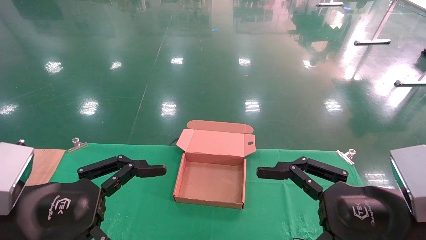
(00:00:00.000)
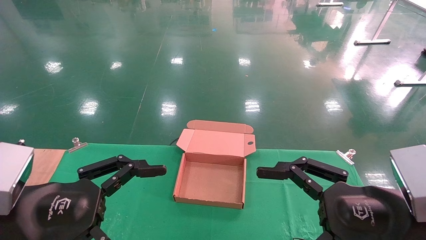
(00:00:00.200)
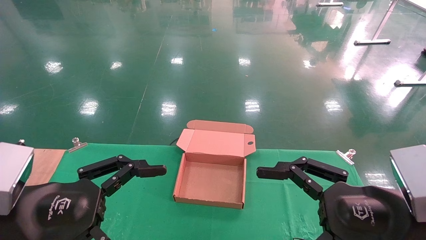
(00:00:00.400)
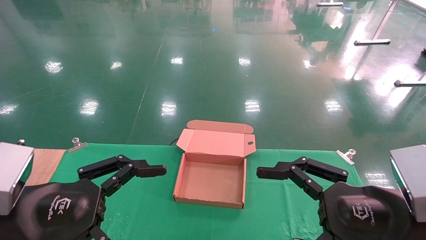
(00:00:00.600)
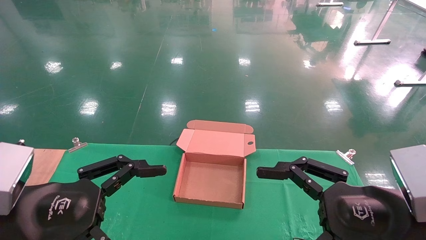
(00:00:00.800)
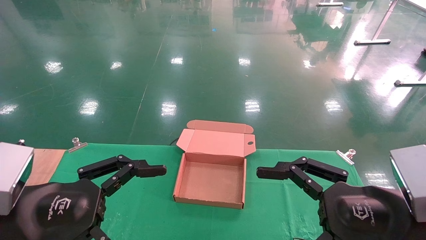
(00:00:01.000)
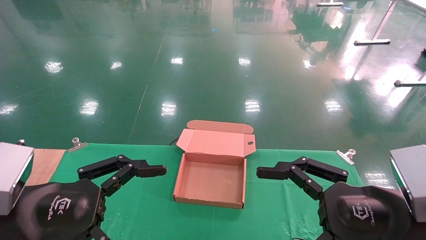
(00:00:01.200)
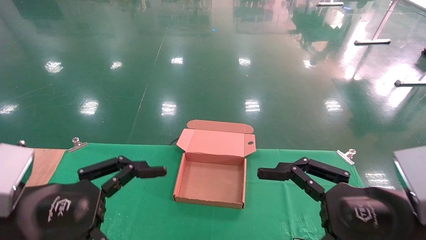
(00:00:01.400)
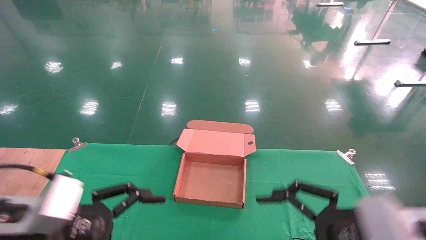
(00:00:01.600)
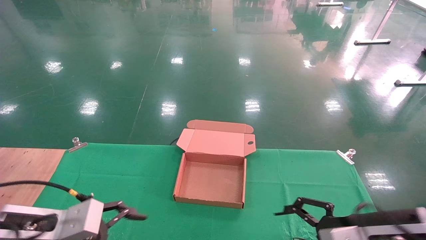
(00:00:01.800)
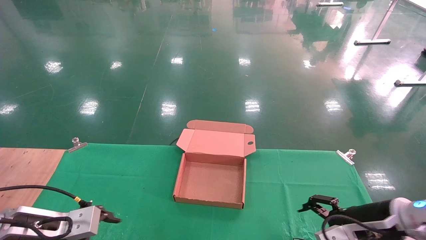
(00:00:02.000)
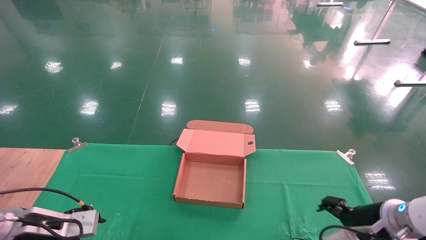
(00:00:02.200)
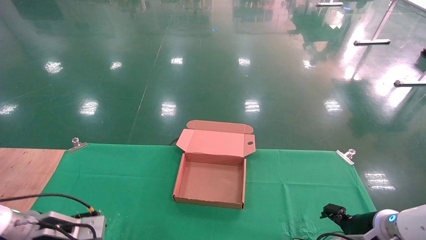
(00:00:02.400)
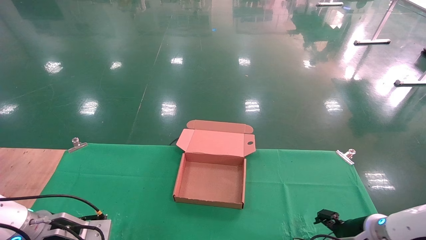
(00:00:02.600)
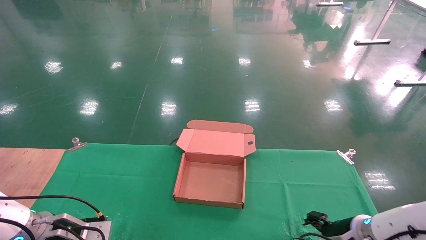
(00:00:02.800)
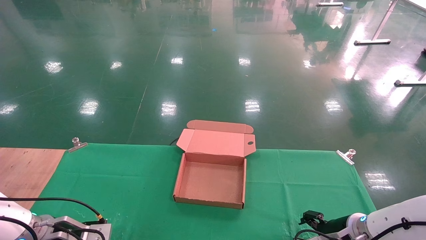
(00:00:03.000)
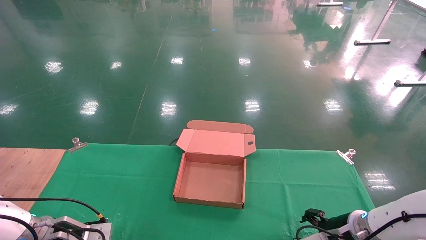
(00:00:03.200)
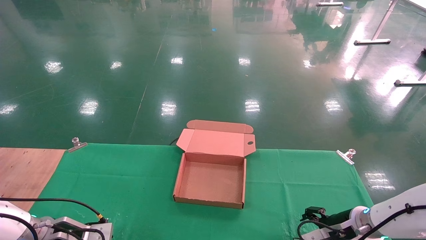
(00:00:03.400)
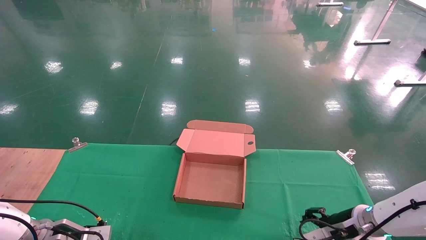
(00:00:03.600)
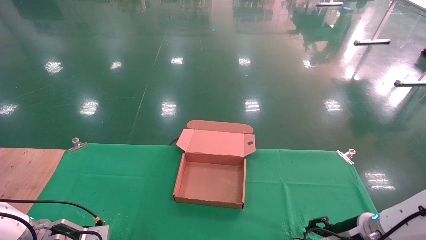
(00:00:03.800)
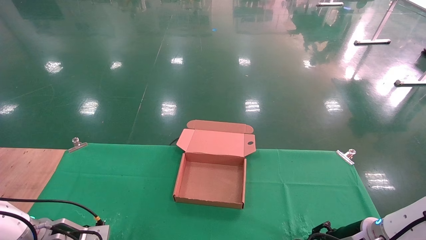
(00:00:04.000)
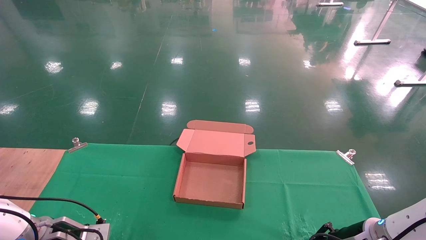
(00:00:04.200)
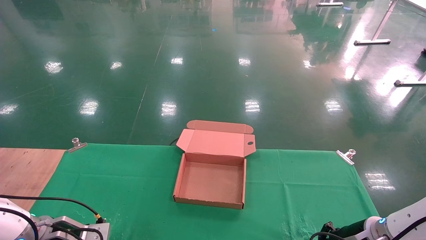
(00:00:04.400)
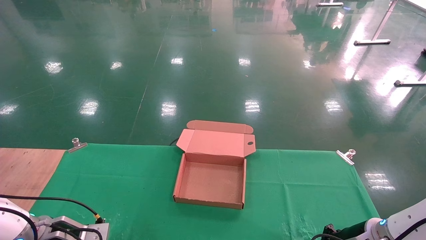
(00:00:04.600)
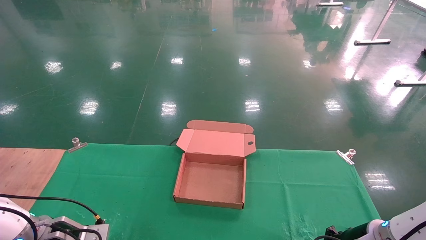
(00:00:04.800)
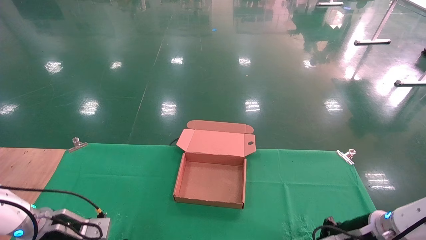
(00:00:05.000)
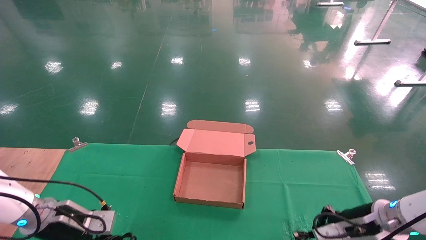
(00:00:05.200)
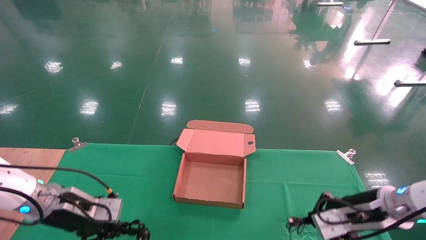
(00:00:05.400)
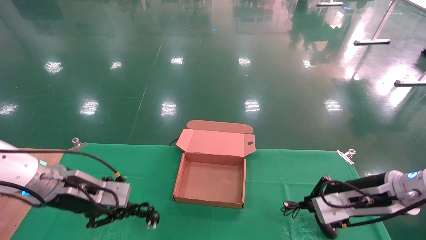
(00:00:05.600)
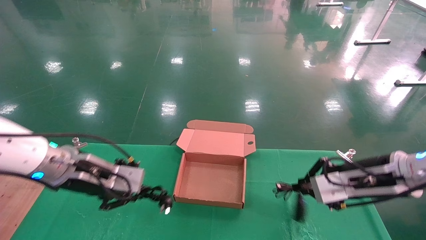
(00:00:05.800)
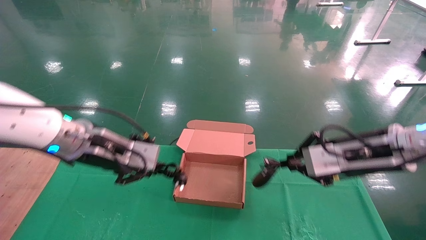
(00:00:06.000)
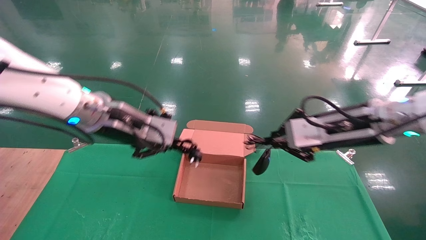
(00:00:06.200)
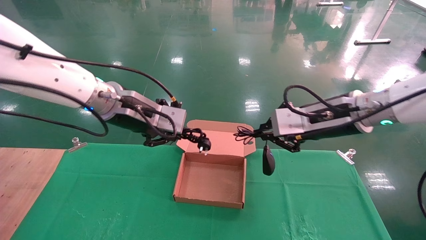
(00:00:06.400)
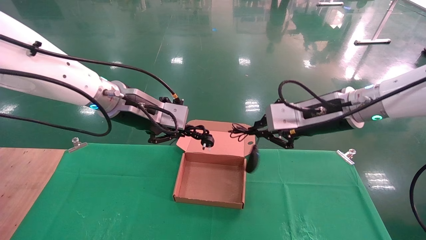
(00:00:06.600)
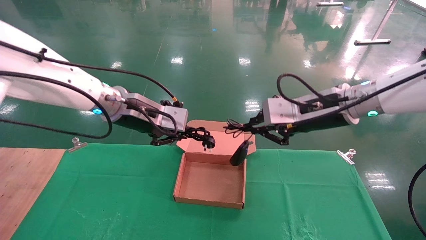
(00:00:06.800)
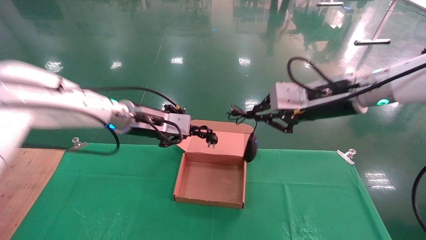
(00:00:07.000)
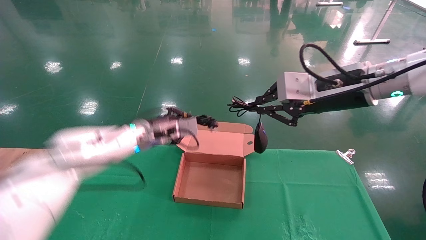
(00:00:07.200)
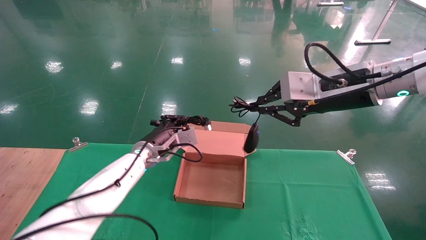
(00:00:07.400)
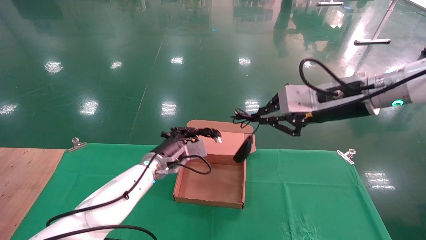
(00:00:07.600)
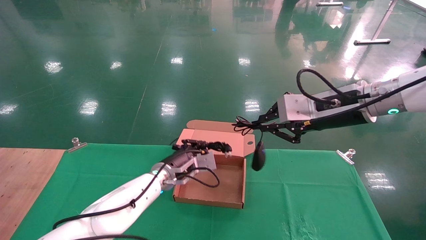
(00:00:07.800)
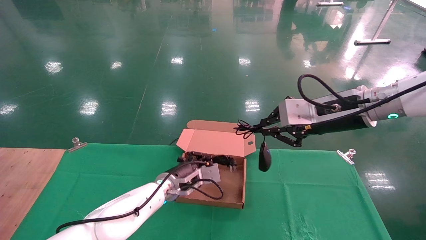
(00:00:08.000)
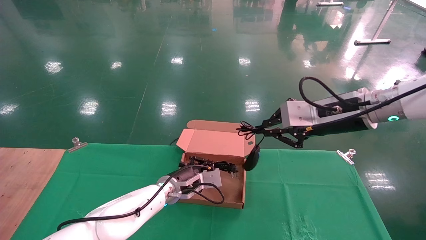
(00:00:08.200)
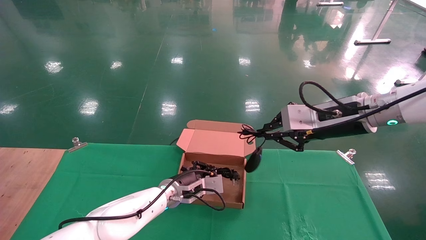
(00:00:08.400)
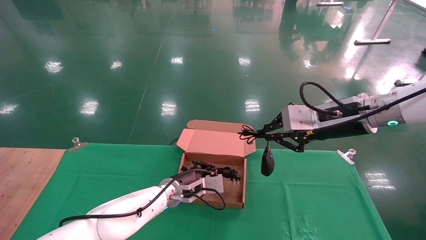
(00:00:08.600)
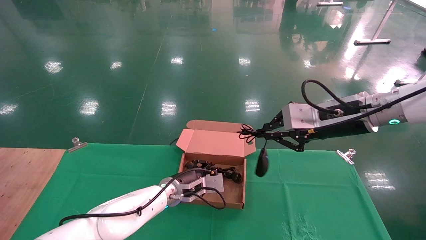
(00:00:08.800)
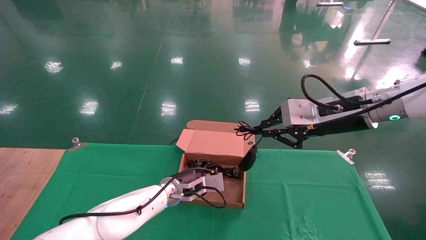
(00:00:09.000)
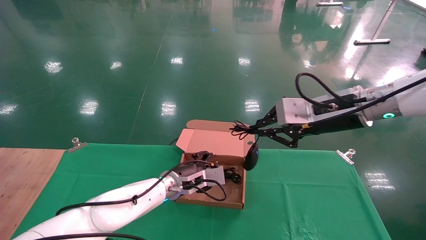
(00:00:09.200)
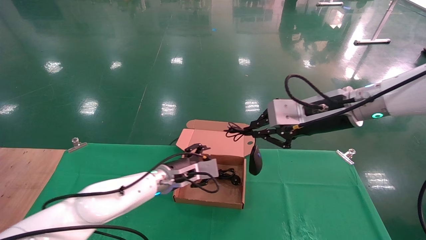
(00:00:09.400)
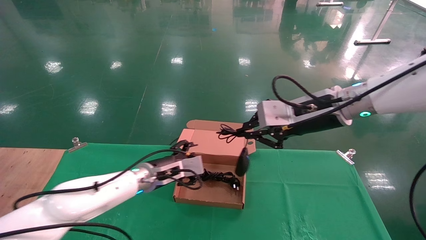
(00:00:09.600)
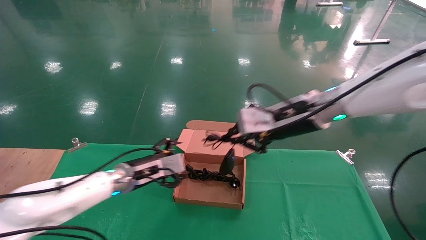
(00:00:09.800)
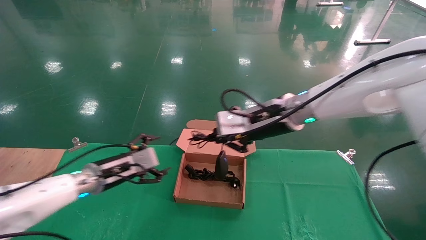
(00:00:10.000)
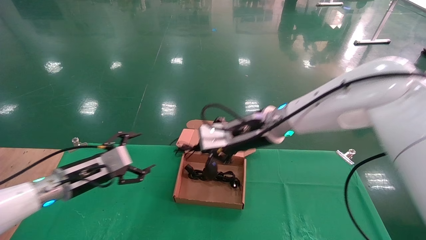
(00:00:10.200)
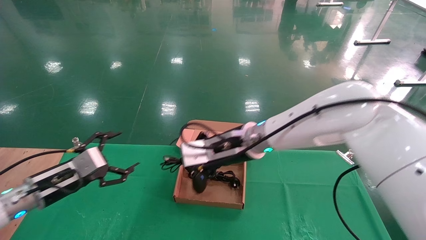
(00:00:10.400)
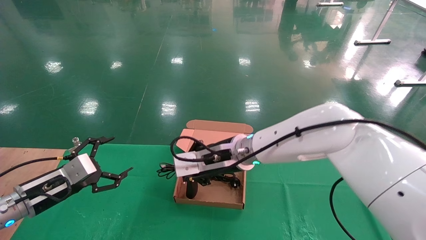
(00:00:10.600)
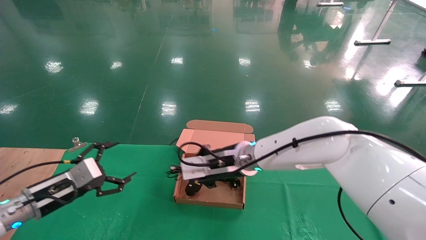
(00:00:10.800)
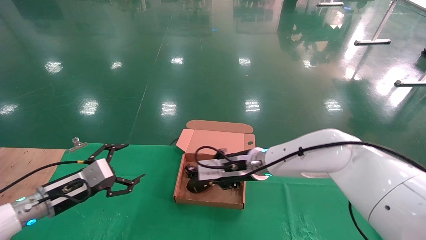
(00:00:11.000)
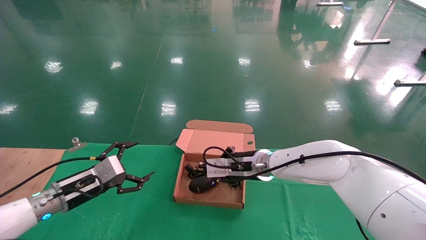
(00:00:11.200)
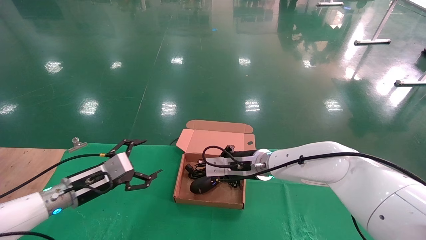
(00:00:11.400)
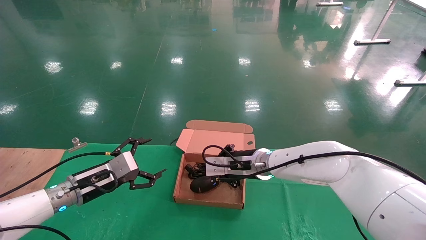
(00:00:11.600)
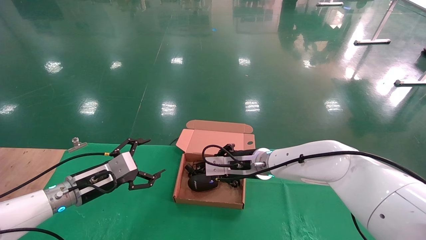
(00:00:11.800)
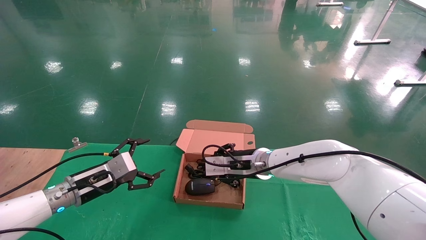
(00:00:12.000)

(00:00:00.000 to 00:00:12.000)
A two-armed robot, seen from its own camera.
Step, 00:00:01.400 - 00:00:05.200: Grab and lift both the mouse and power cord from the accessory packaging area at the same time.
Step, 00:00:05.400 - 00:00:10.200: Place the mouse and power cord into the box.
00:00:00.000 - 00:00:01.600: The right gripper ends up about 5 cm from where it was. Meanwhile the left gripper shifts by some 5 cm.
00:00:01.600 - 00:00:03.000: The left gripper moves forward, downward and to the left, roughly 20 cm, while the right gripper goes some 20 cm forward and downward.
00:00:03.000 - 00:00:04.400: The left gripper closes up. The right gripper closes its fingers.
00:00:04.400 - 00:00:06.000: The left gripper is displaced upward and to the right by about 30 cm. The right gripper travels upward by roughly 20 cm.
00:00:06.000 - 00:00:07.600: The left gripper moves forward, downward and to the right, about 20 cm. The right gripper heads upward, covering roughly 10 cm.
00:00:07.600 - 00:00:09.000: The left gripper moves downward, about 5 cm.
00:00:09.000 - 00:00:10.400: Both grippers move to the left, roughly 20 cm. The left gripper opens up.
00:00:10.400 - 00:00:12.000: The right gripper heads downward and forward, covering about 10 cm. Meanwhile the left gripper ends up approximately 5 cm from where it was.

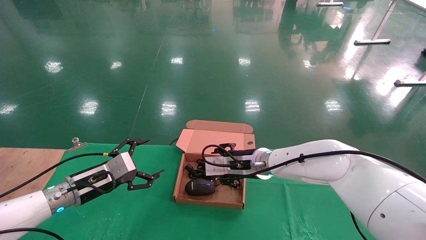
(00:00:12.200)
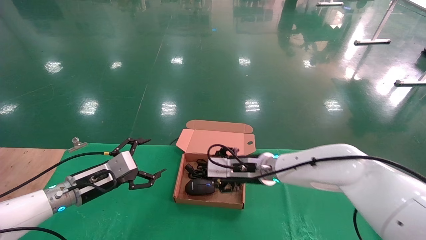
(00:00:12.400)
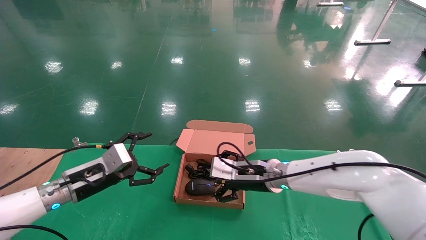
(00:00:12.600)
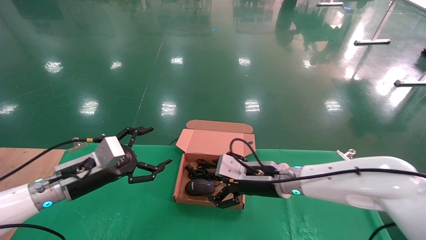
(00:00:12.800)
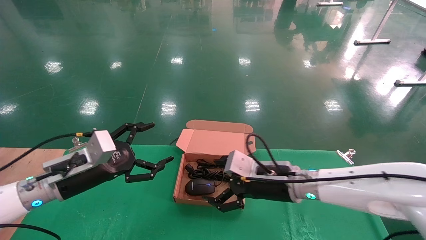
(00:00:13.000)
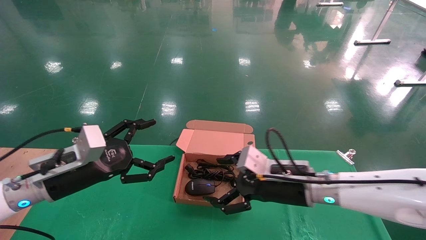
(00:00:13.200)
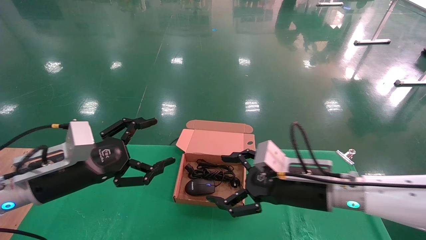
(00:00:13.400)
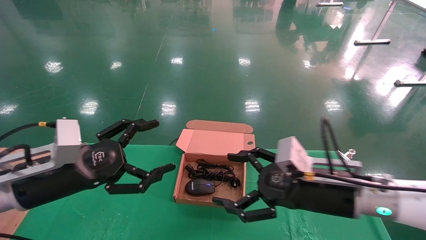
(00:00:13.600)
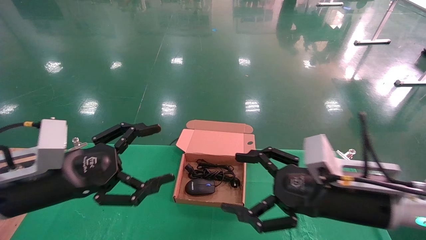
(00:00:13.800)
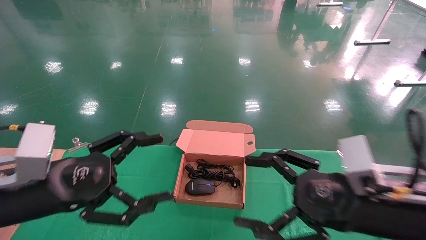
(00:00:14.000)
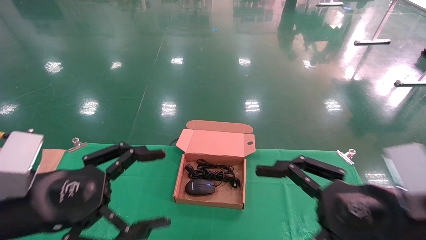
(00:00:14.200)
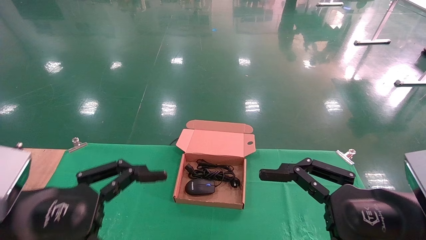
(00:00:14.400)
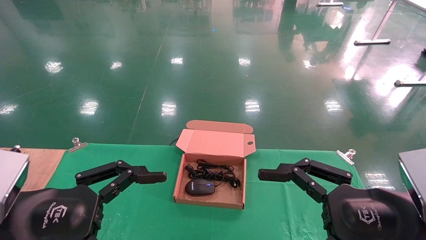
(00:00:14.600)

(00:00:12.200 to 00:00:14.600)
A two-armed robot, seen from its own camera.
00:00:12.200 - 00:00:13.400: The left gripper moves backward and upward, about 15 cm. Meanwhile the right gripper shifts about 15 cm backward and to the right, and opens up.
00:00:13.400 - 00:00:14.600: The right gripper heads backward and to the right, covering approximately 15 cm, while the left gripper heads backward, covering some 15 cm.
